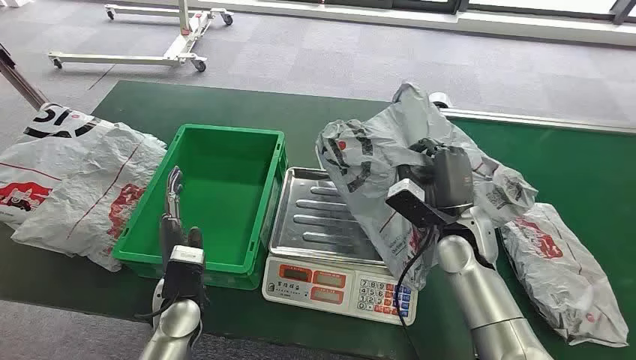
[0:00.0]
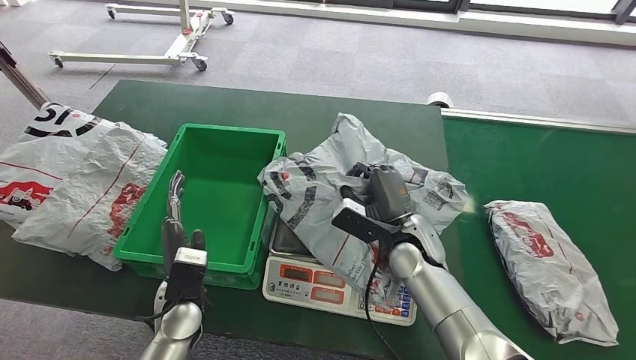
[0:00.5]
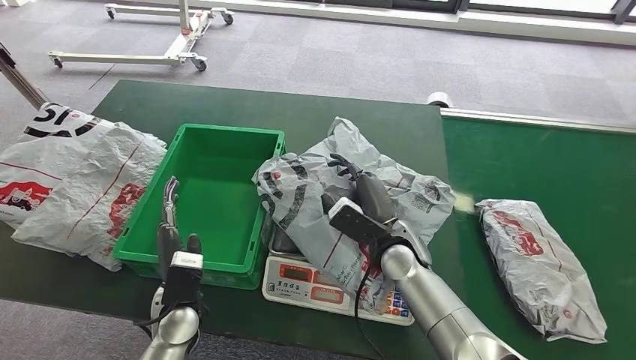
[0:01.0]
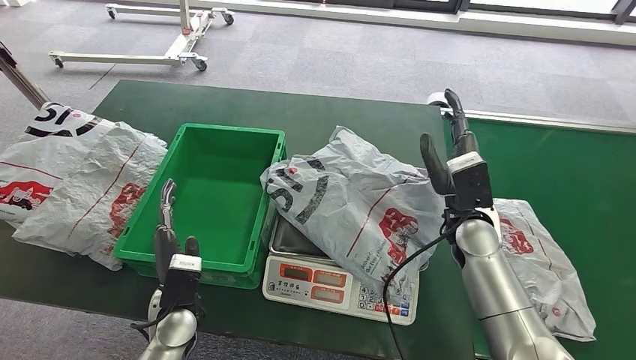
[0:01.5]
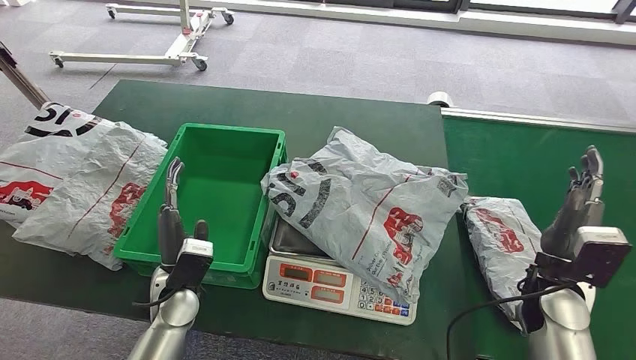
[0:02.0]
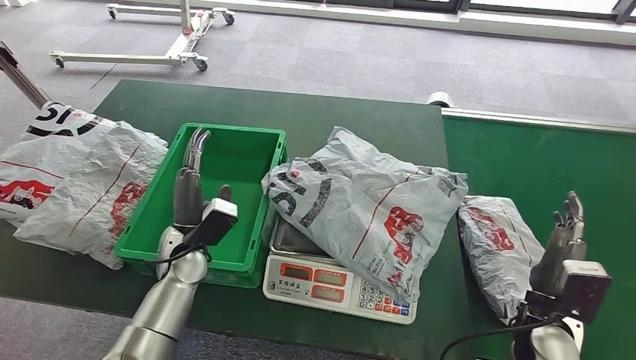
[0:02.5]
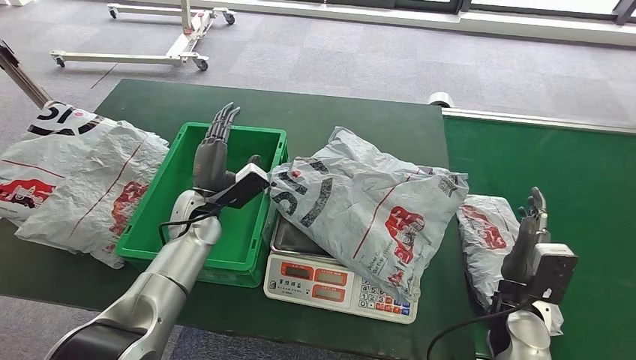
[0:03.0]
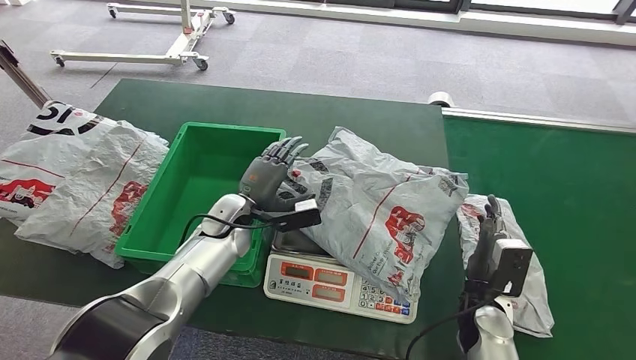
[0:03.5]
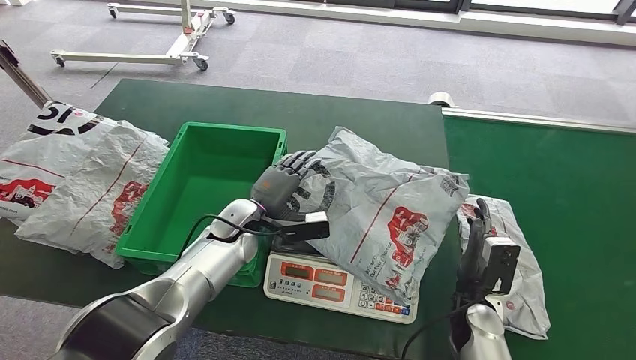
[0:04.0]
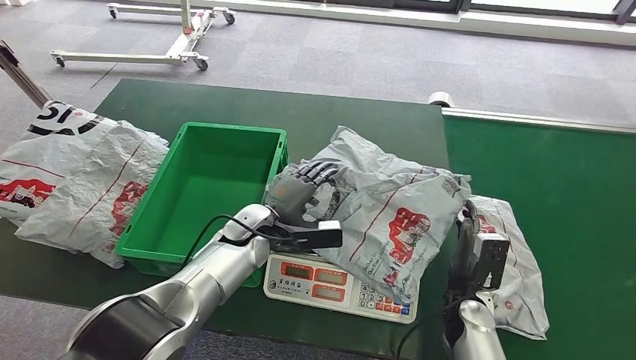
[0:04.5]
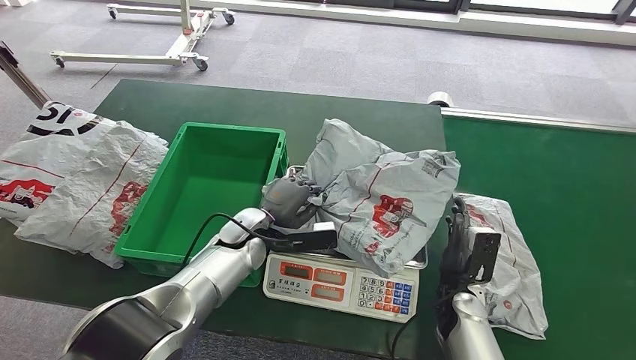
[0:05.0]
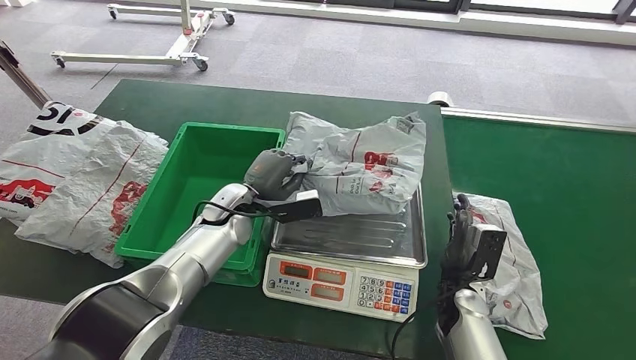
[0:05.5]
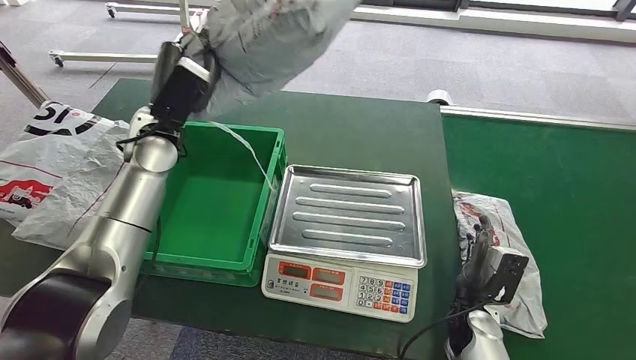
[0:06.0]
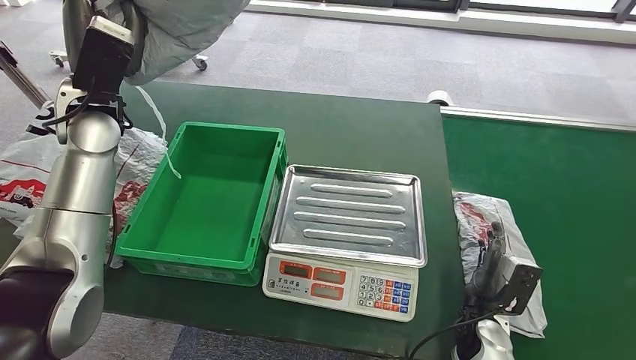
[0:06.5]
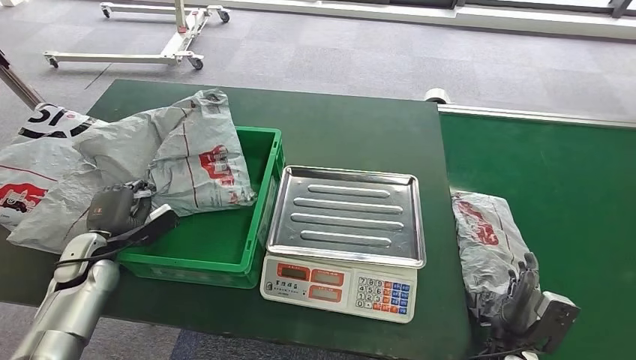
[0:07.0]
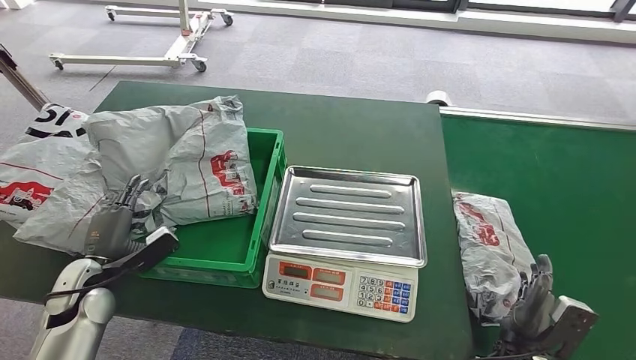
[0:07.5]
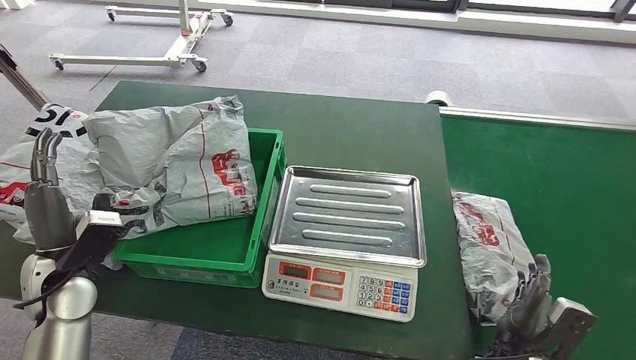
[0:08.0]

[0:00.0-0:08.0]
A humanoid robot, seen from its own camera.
Step, 0:00.0 to 0:00.5: Pick up the package from the conveyor belt.
Step, 0:01.0 to 0:02.5: Place the package onto the inbound machine.
Step, 0:03.0 to 0:05.5: Pick up the package from the inbound machine.
Step, 0:06.0 to 0:08.0: Place the package into the parcel locker.
